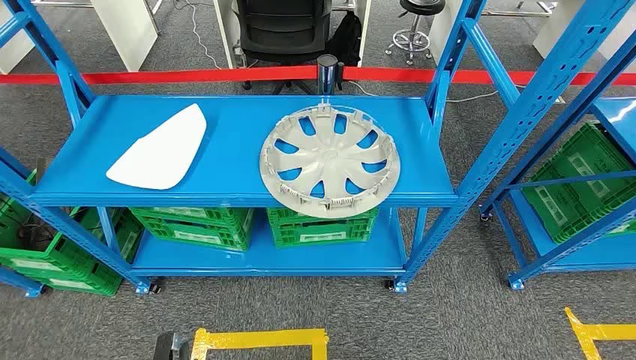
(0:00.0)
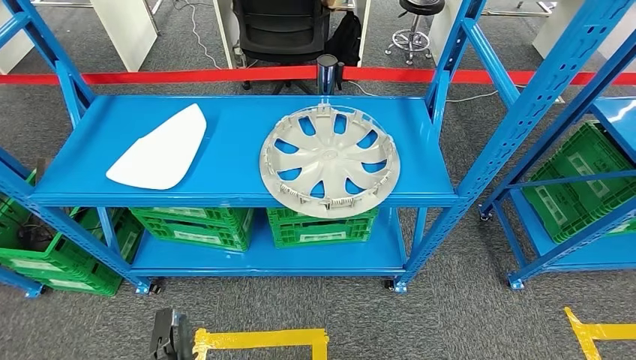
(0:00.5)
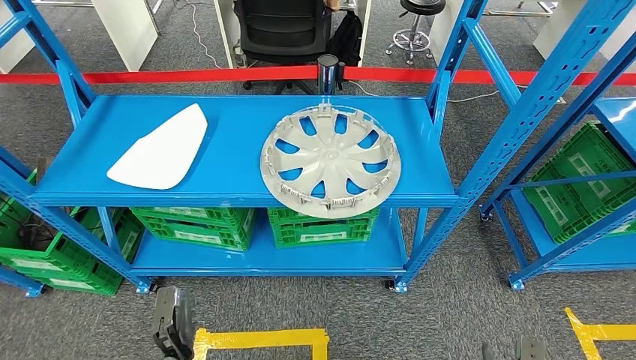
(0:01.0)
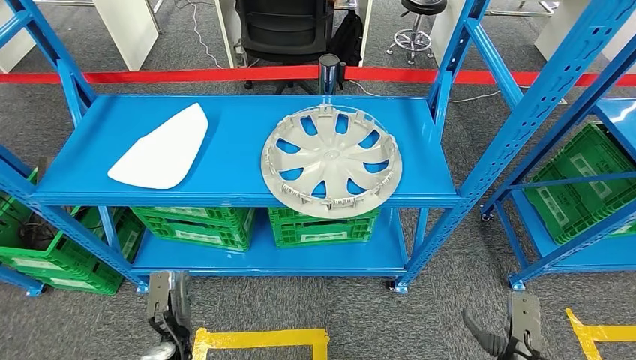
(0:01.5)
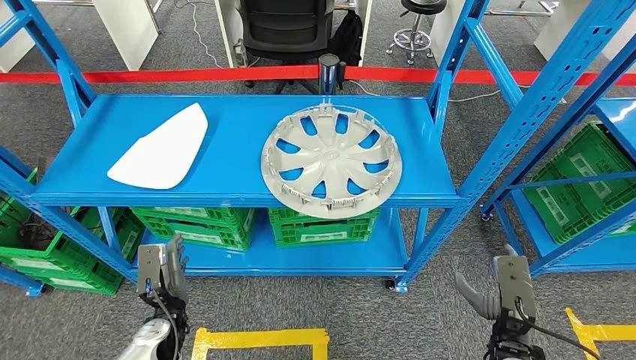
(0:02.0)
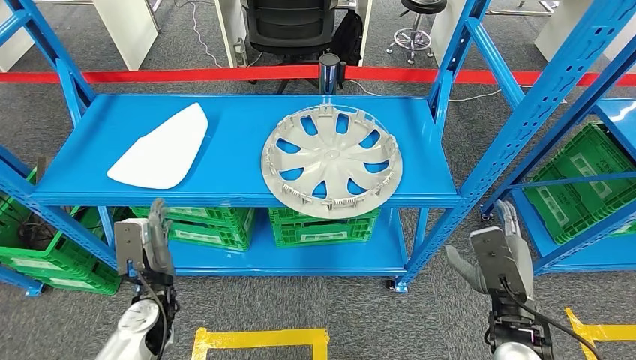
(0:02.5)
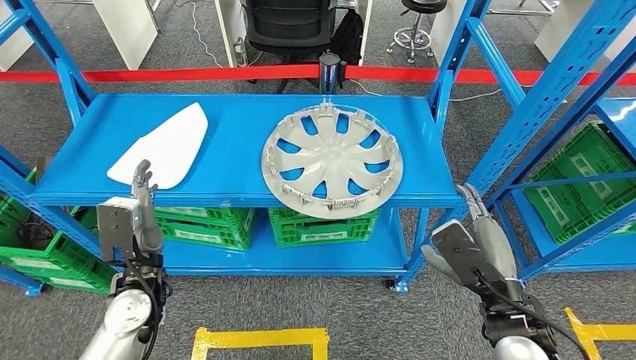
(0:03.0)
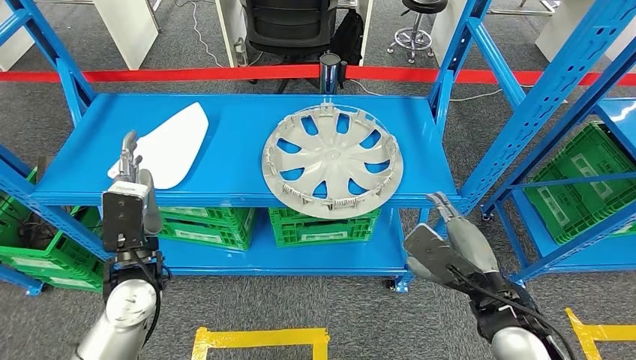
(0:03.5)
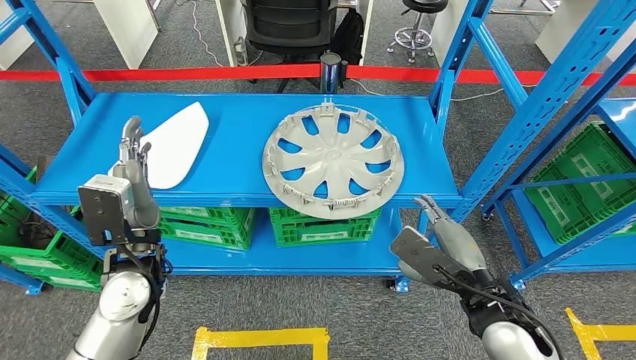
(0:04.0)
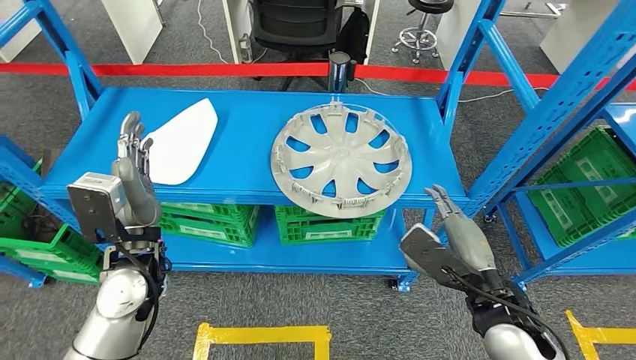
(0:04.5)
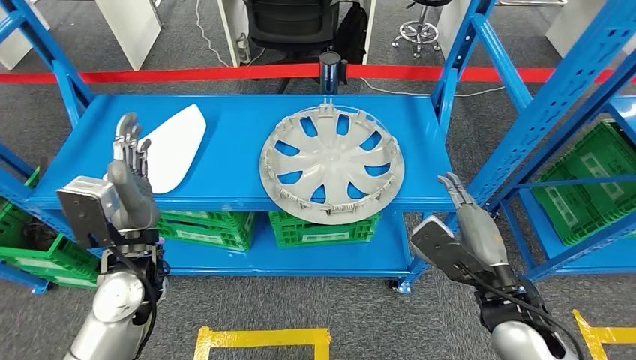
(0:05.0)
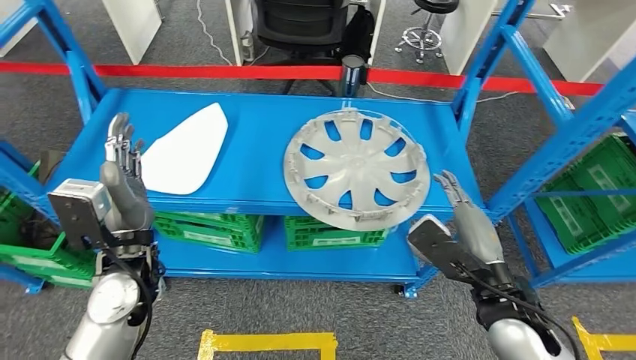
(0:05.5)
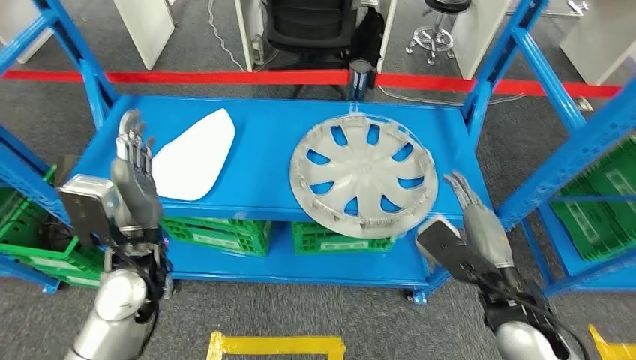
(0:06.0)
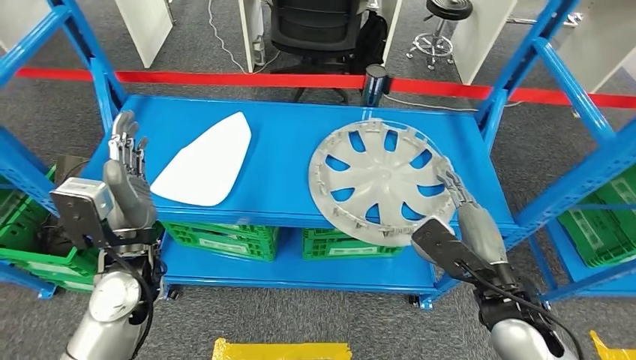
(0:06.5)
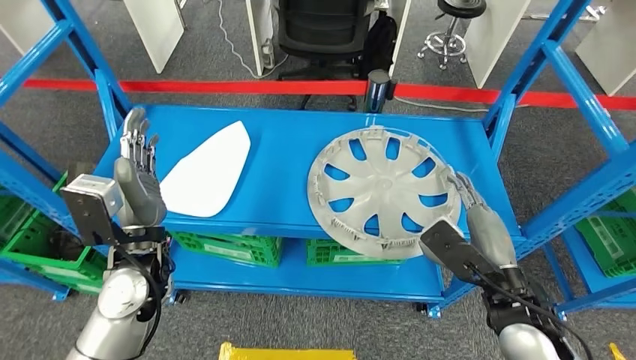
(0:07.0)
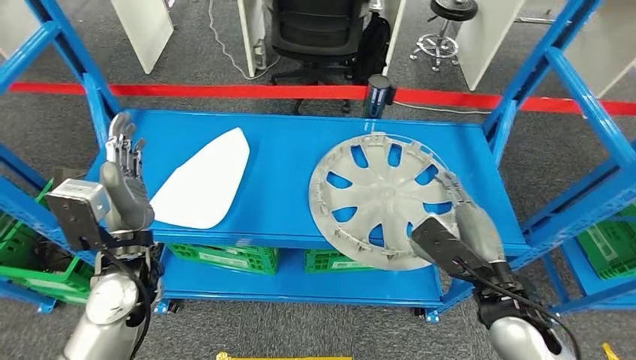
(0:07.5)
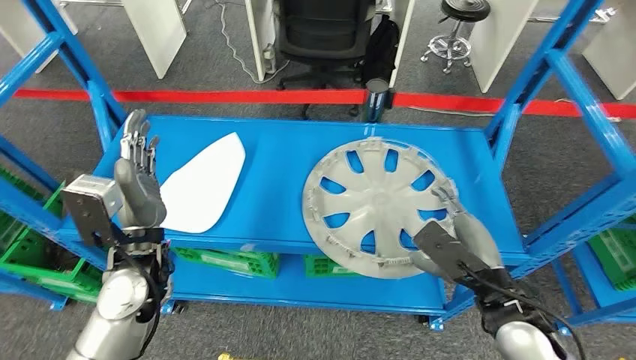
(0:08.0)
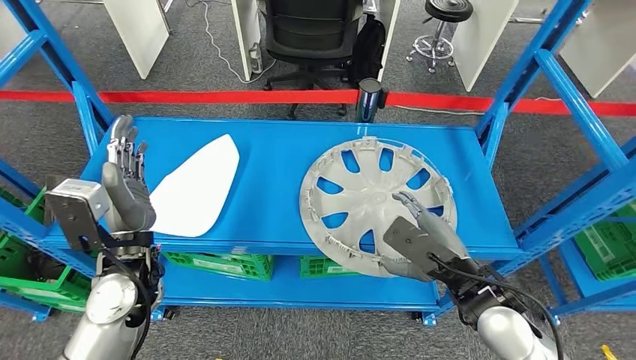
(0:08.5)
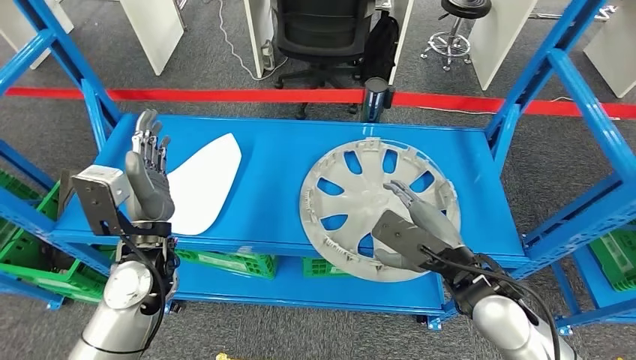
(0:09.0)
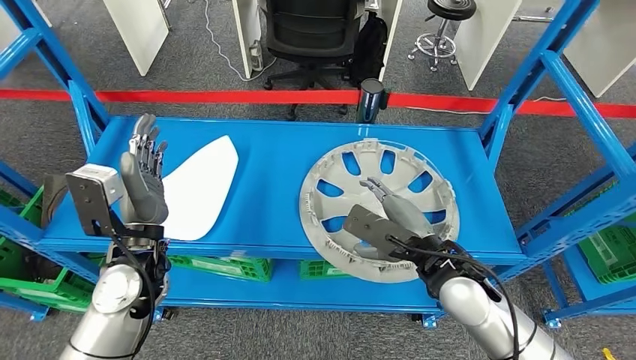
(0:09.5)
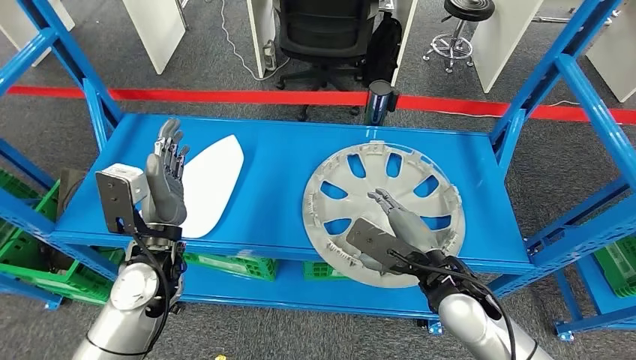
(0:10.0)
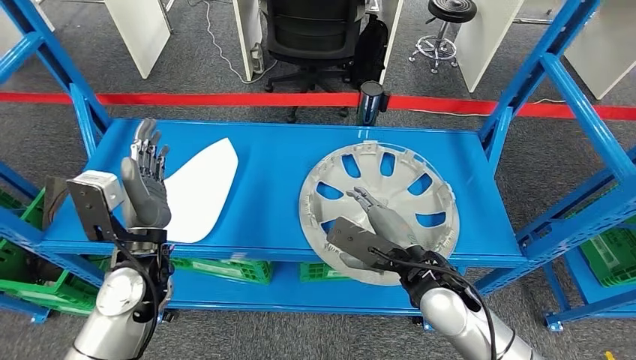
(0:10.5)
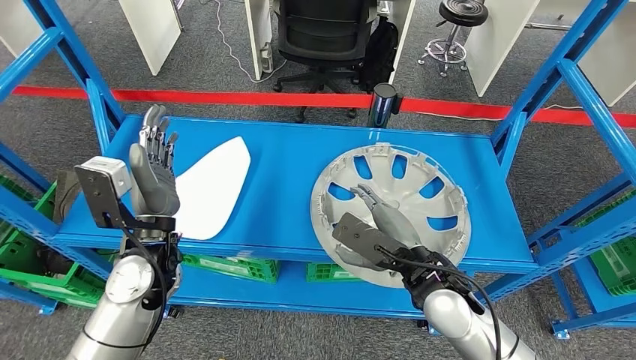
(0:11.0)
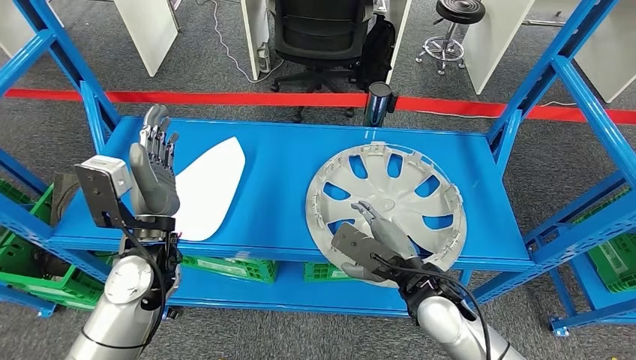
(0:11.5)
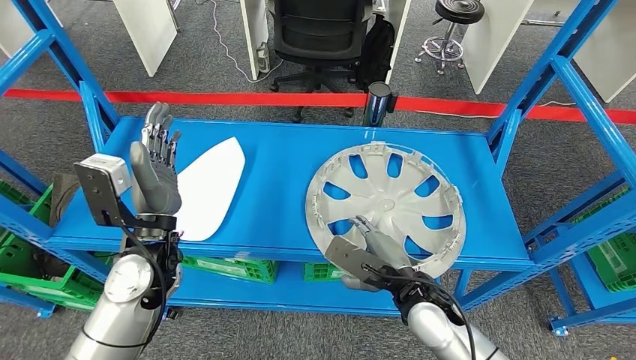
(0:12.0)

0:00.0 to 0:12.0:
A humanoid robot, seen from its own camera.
0:02.0 to 0:04.0: The right hand is displaced upward and to the left by approximately 10 cm, while the left hand travels upward by some 20 cm.

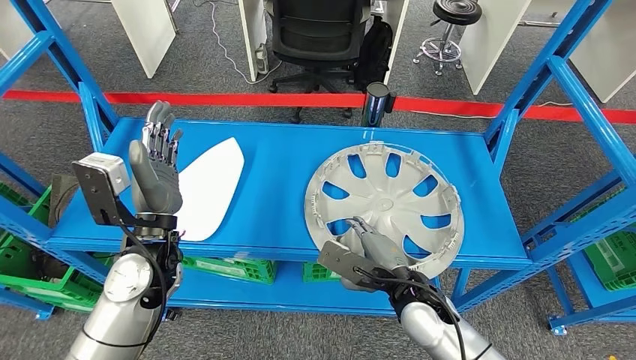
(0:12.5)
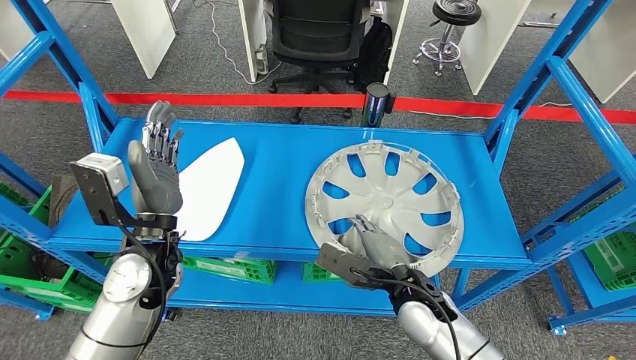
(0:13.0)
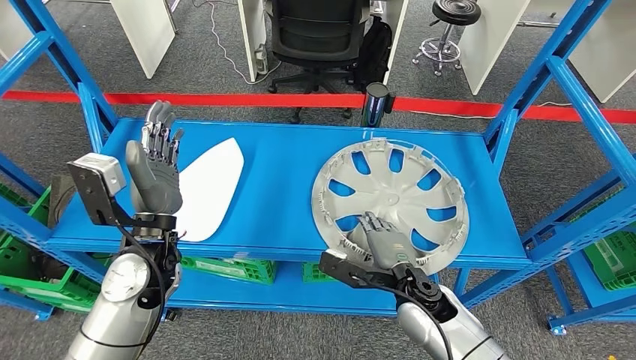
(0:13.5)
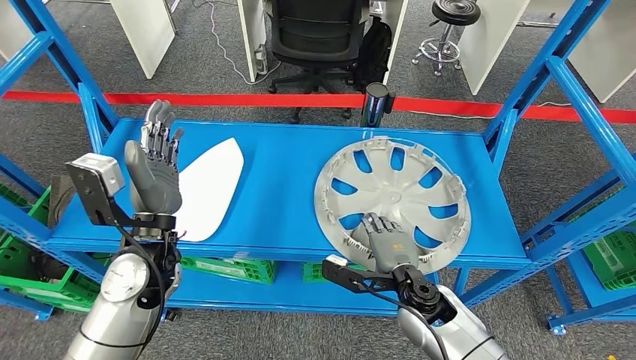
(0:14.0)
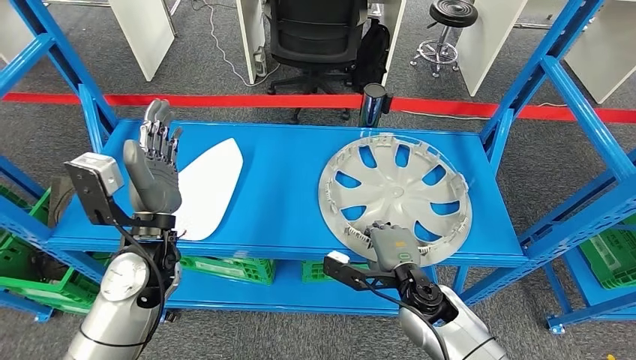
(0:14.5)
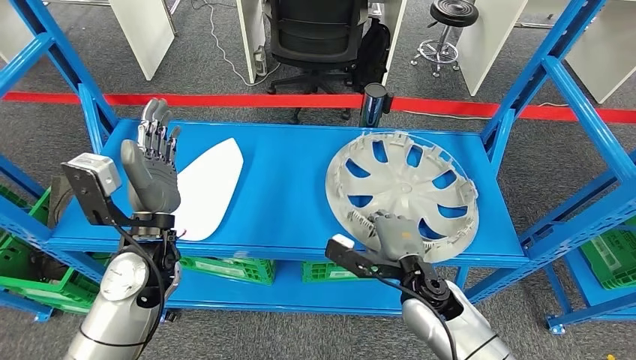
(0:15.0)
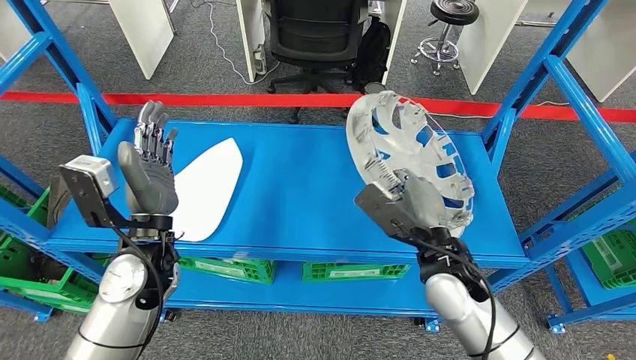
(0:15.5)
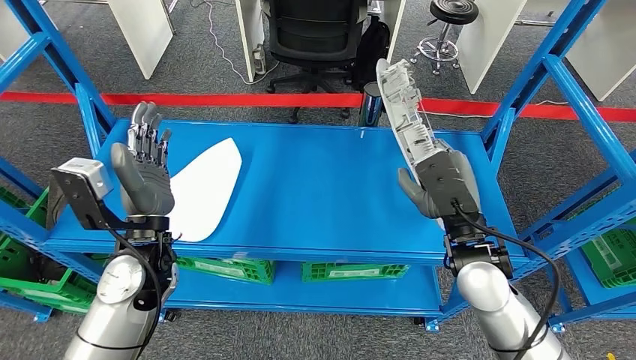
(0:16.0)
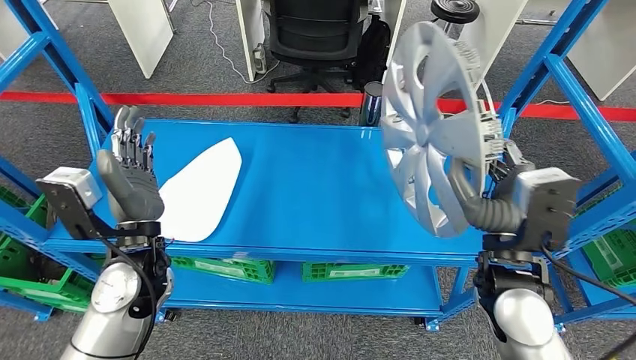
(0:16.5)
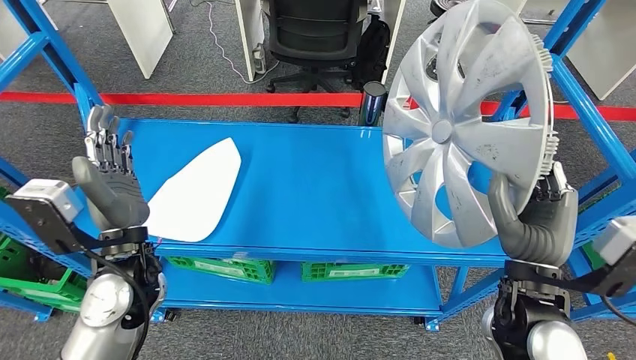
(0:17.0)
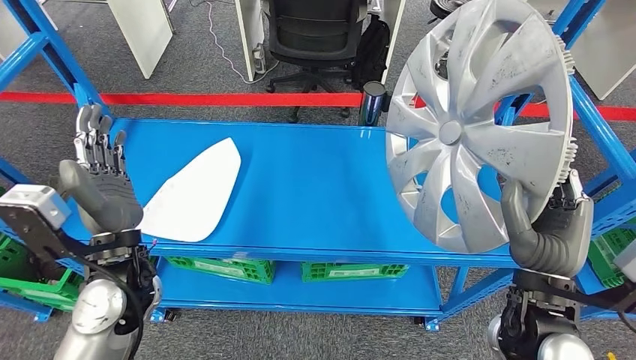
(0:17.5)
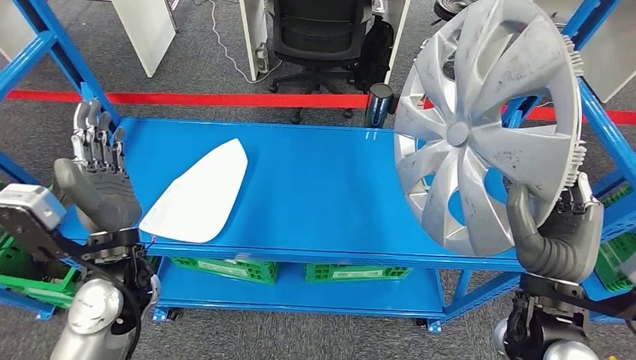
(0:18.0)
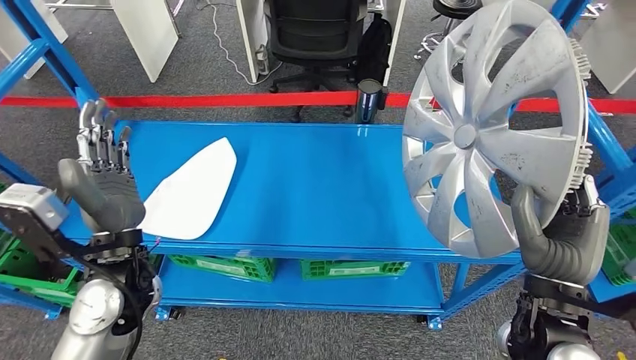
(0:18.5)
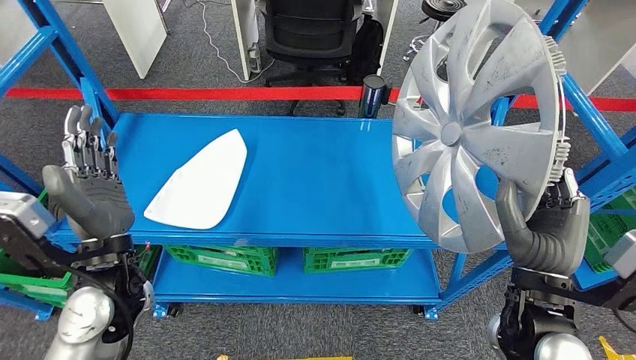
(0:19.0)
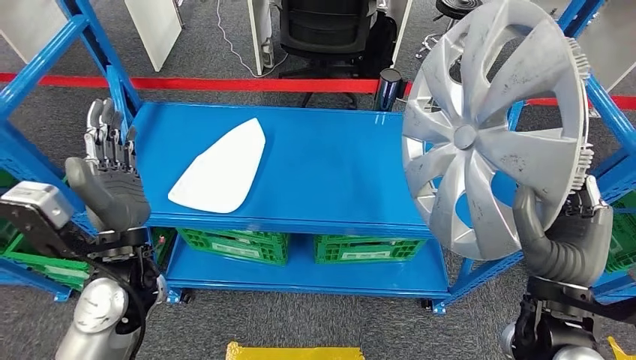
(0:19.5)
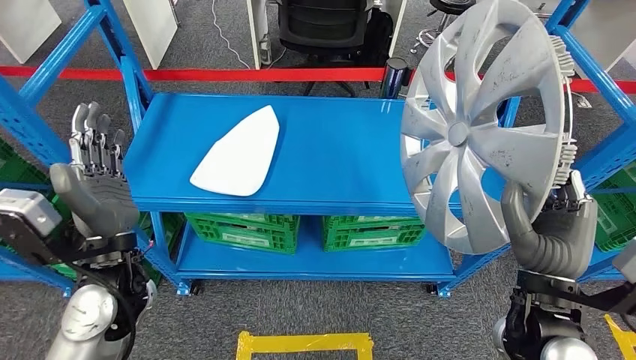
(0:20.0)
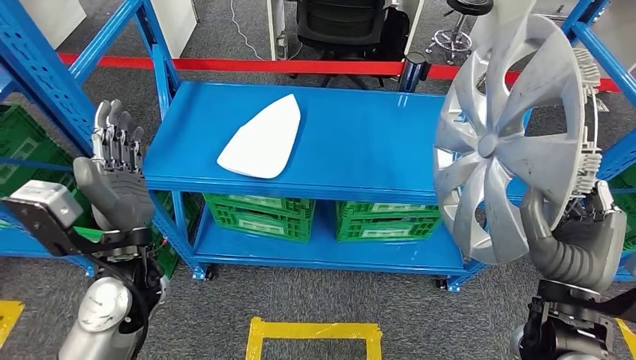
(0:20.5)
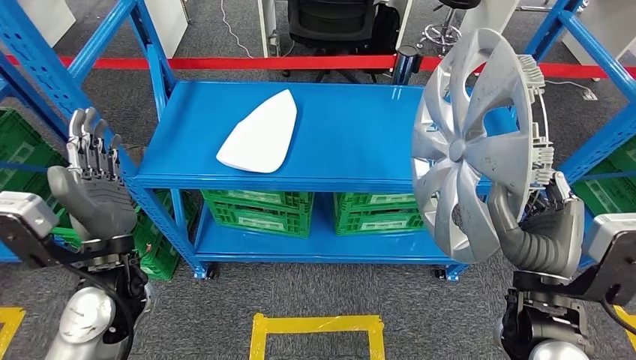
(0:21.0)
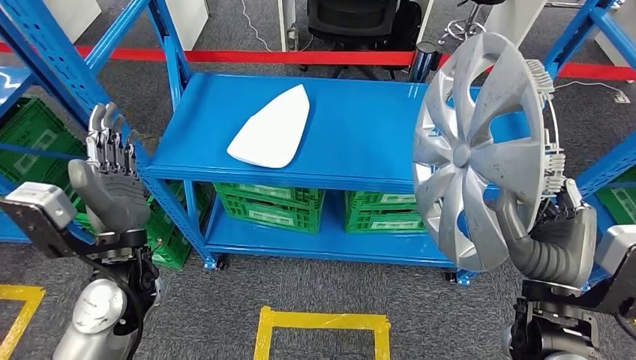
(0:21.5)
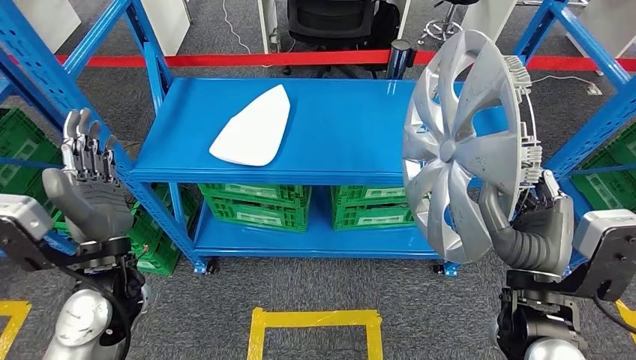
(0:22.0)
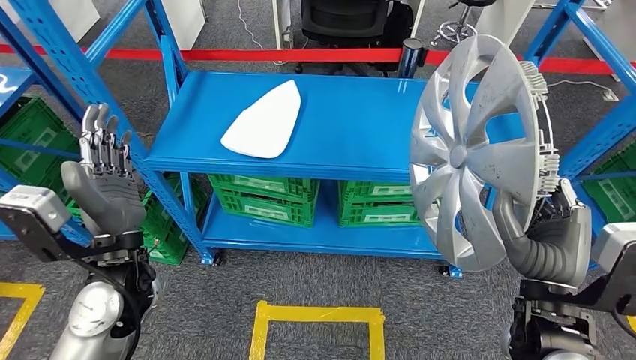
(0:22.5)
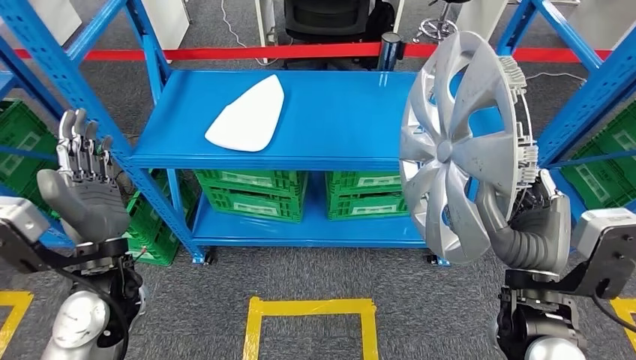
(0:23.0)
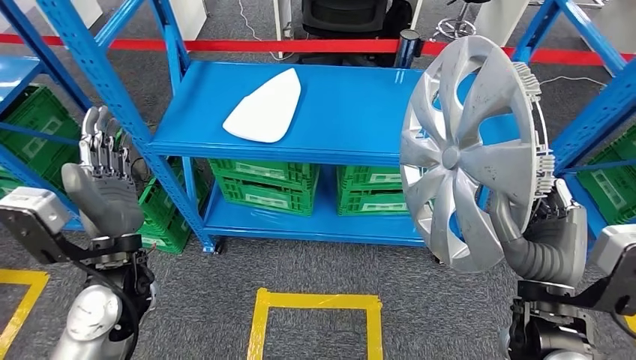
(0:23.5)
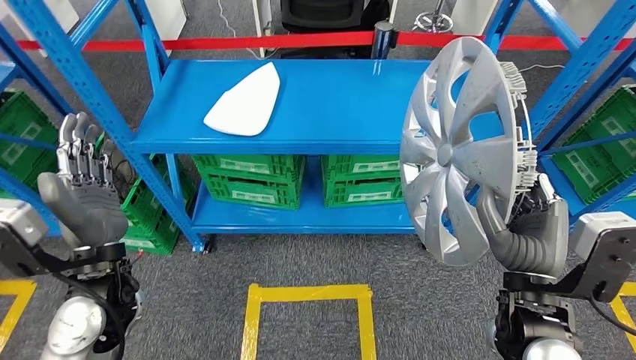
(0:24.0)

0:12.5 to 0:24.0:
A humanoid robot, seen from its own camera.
Step, 0:12.5 to 0:16.0: Pick up the small component from the shelf.
